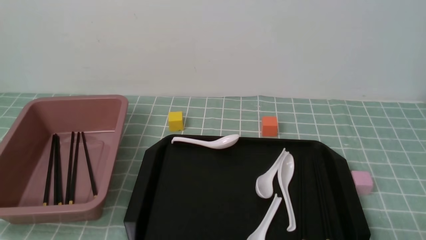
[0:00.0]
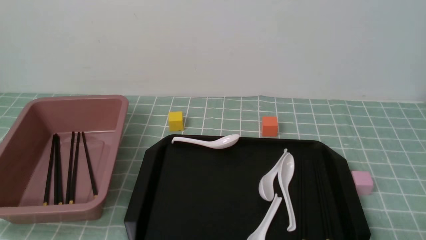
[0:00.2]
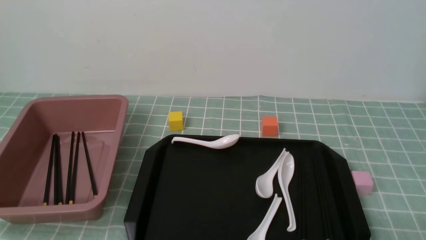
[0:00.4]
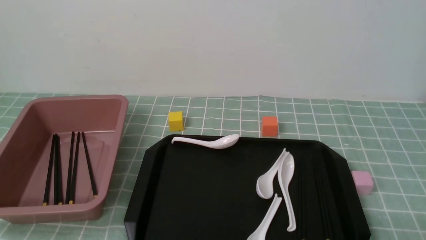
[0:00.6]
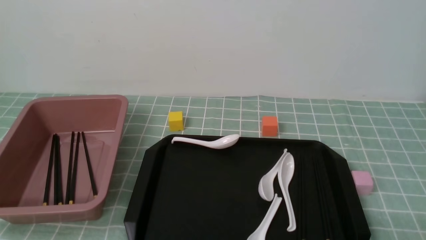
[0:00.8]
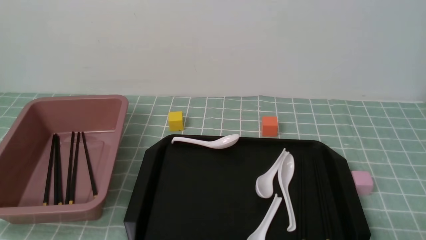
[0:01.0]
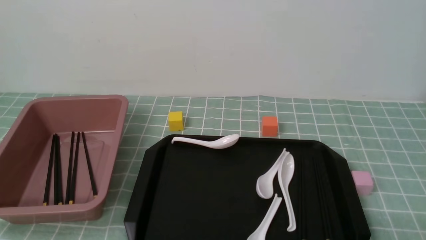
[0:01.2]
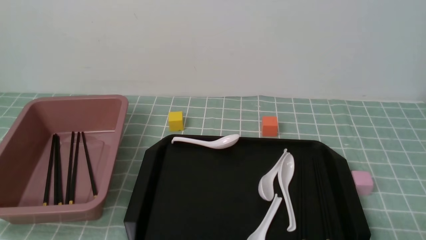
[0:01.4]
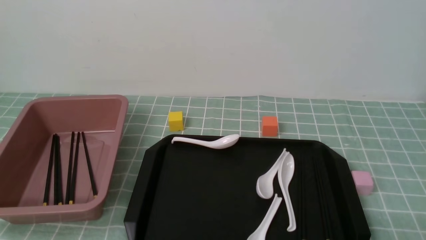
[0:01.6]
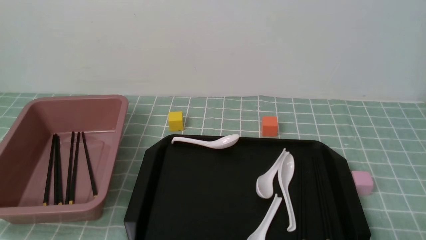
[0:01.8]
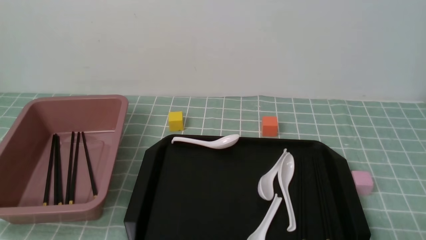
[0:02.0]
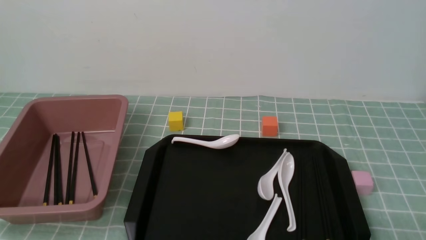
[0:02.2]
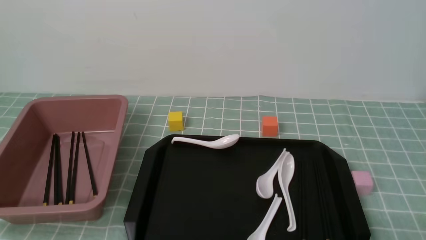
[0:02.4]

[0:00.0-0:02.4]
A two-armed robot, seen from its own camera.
0:01.2 to 0:02.4: Neither gripper changes place.
